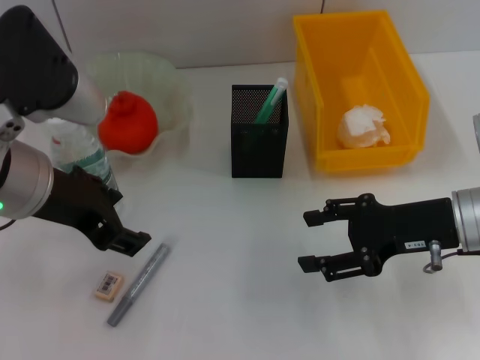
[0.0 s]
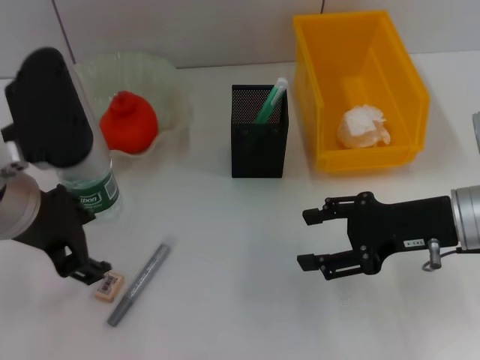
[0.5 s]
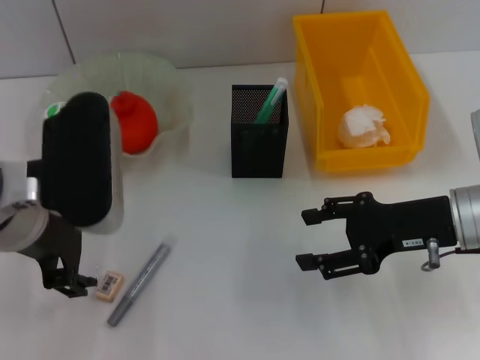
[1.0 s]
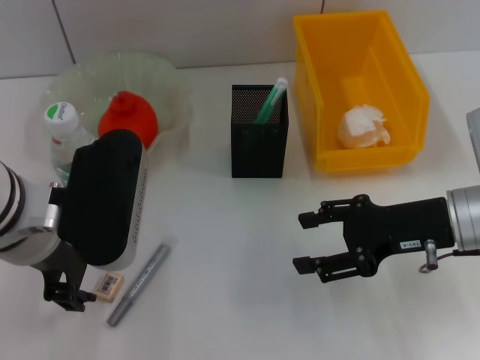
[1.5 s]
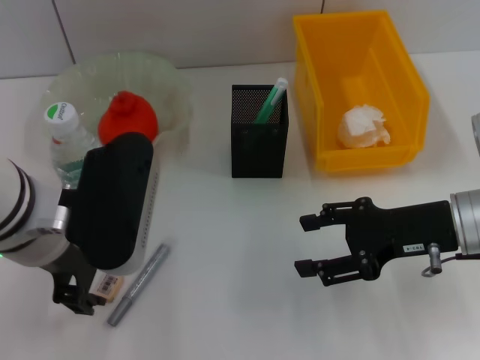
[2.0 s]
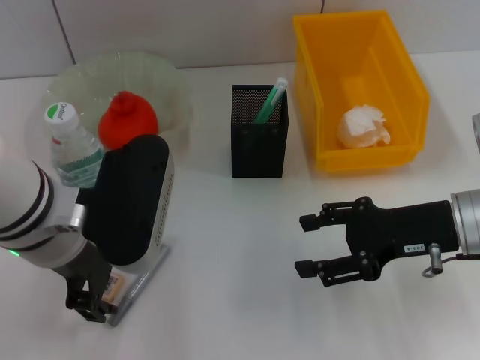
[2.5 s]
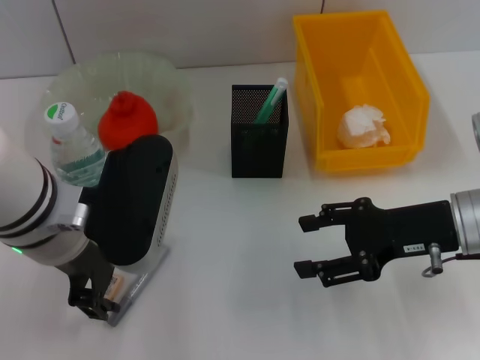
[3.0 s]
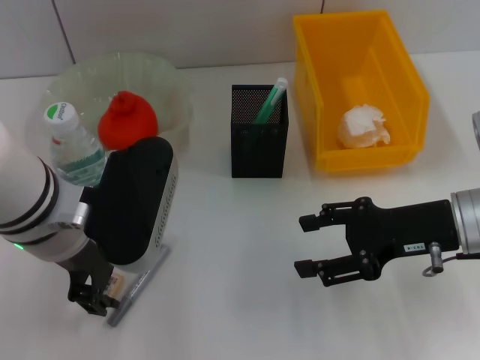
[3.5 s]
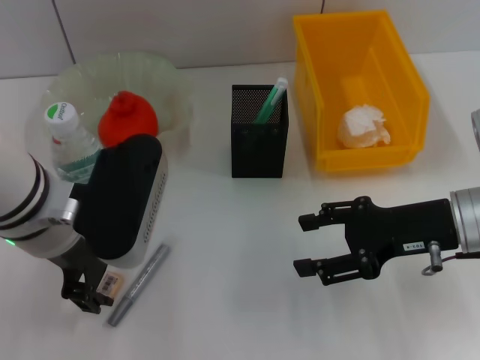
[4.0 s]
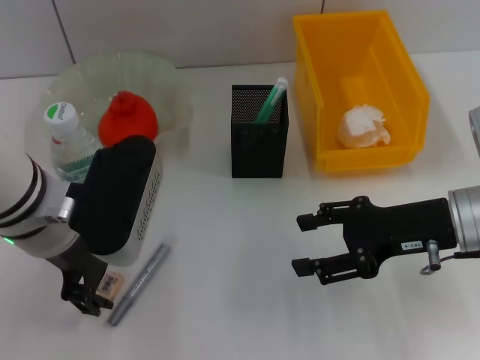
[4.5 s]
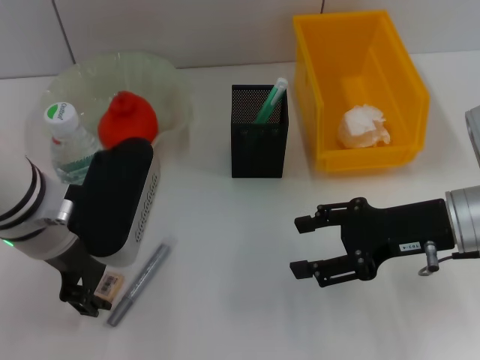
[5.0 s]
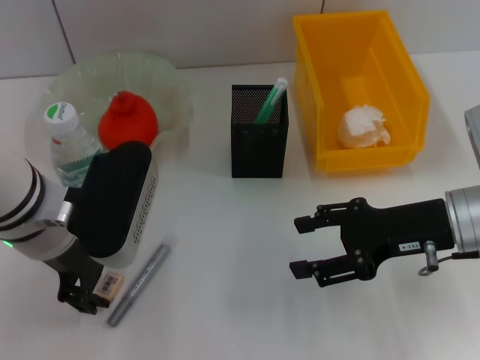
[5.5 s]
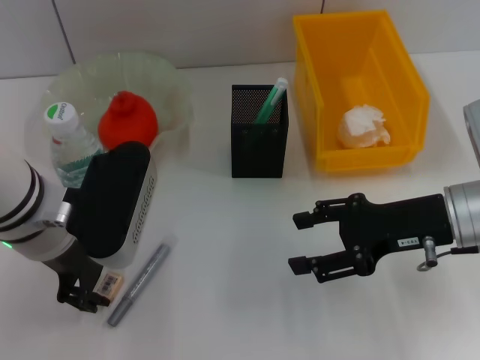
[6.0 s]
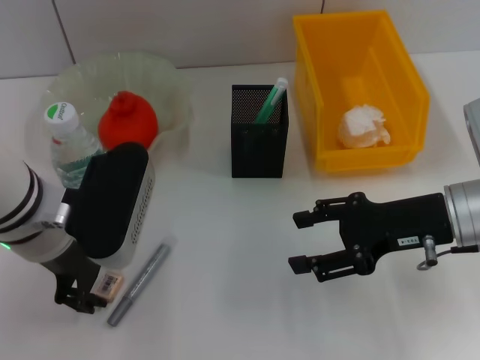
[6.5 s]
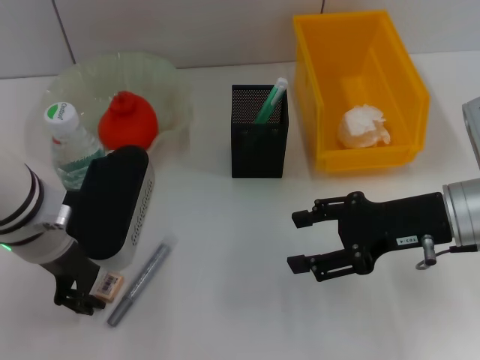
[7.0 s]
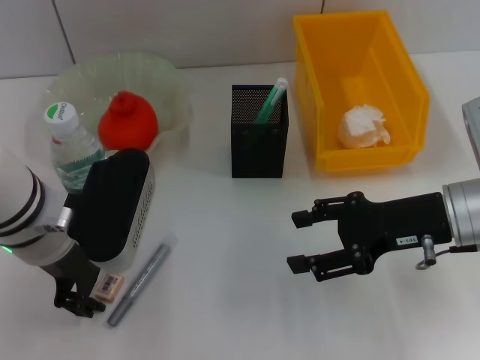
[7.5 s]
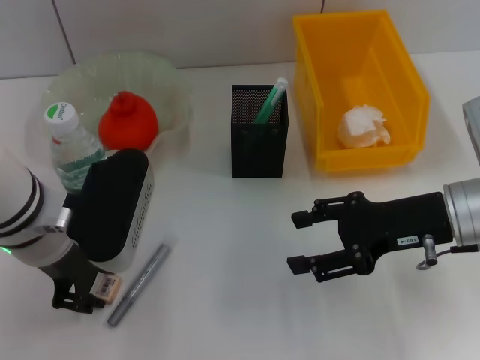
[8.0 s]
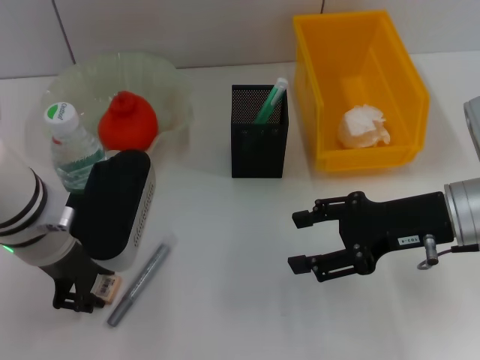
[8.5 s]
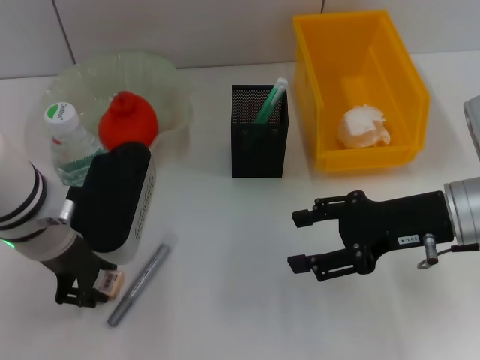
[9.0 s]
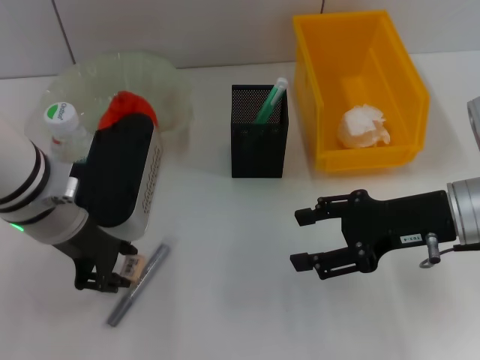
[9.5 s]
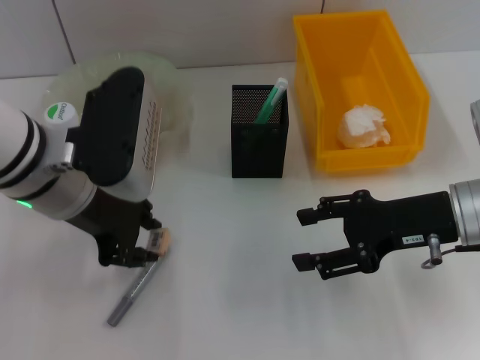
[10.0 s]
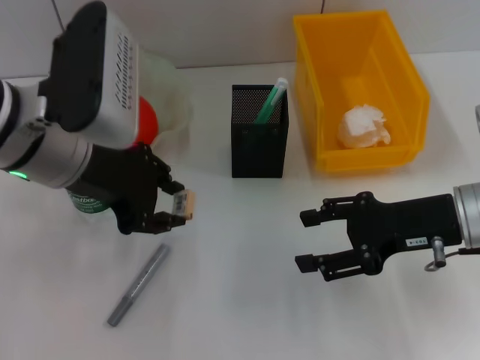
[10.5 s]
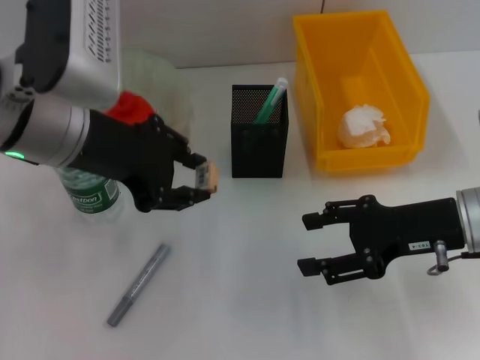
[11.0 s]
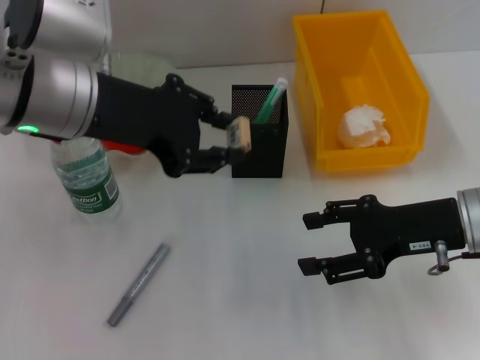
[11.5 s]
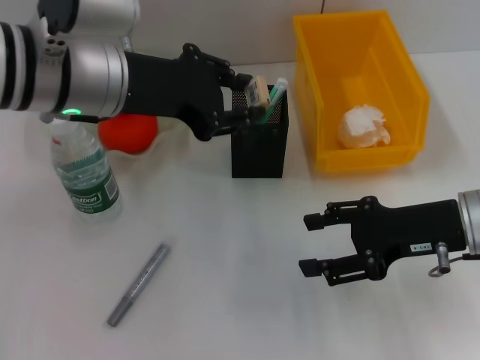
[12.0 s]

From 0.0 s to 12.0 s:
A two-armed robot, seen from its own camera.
Step, from 0.0 s to 8.5 s: Grab the eraser with the left hand.
From 2.0 s to 6.0 s: The grippers stay close to where they were, moving slightly.
From 6.0 s to 8.0 s: Both grippers stay put.
From 8.0 s to 10.0 s: There are only small adjustments of the grippers.
From 10.0 s to 12.0 s: The left gripper moves roughly 5 cm.

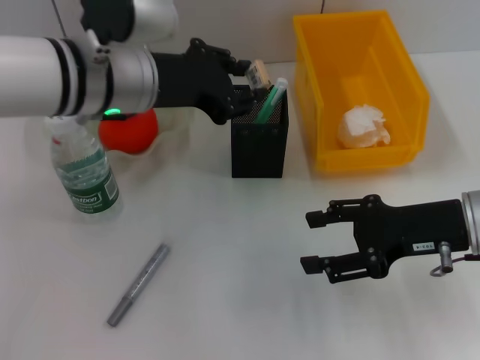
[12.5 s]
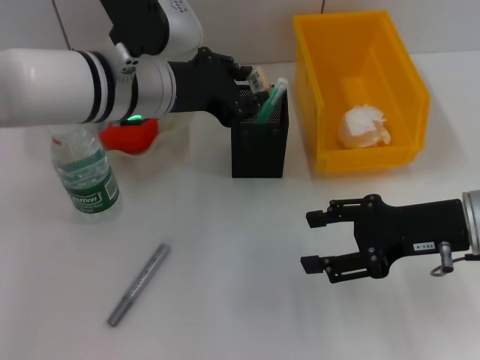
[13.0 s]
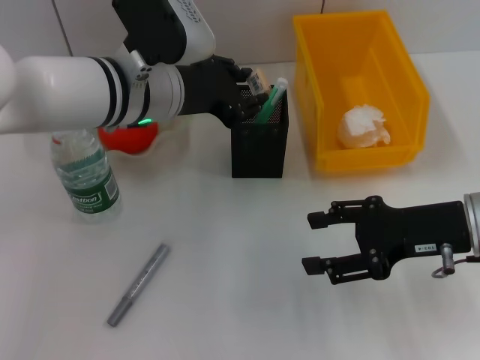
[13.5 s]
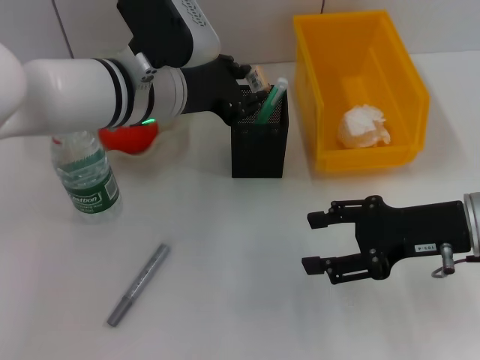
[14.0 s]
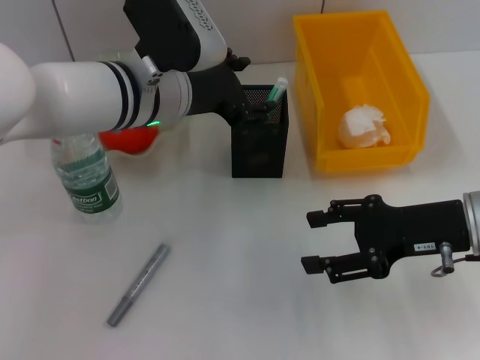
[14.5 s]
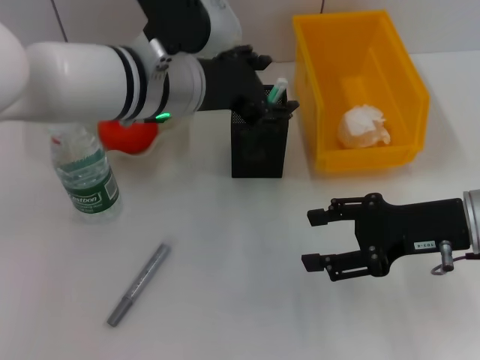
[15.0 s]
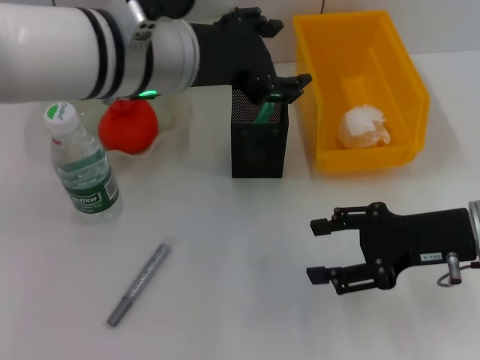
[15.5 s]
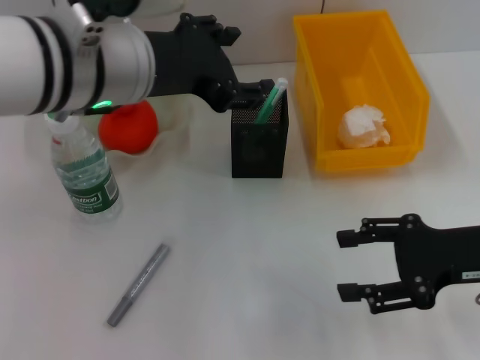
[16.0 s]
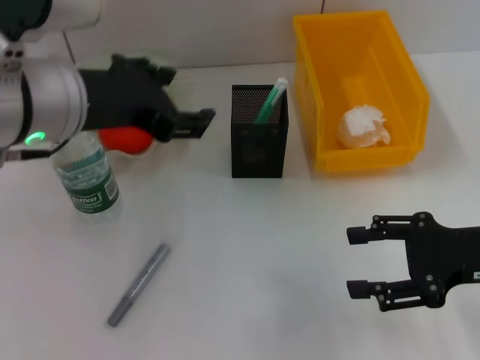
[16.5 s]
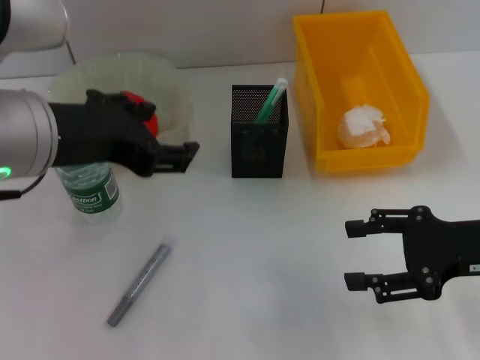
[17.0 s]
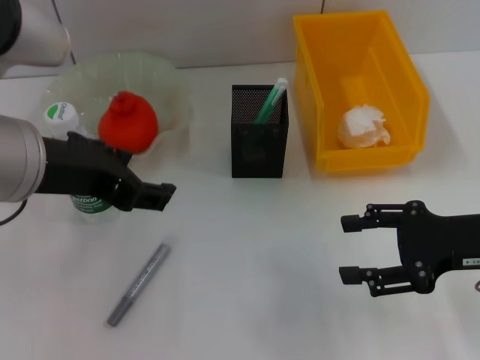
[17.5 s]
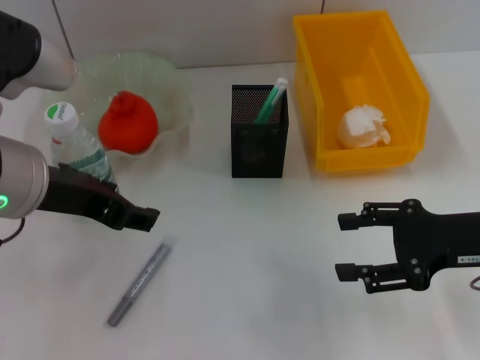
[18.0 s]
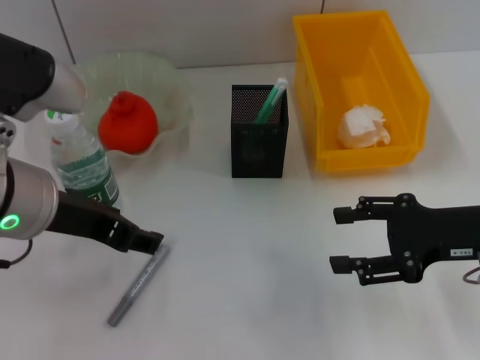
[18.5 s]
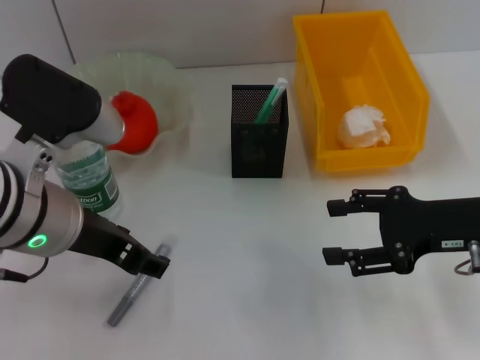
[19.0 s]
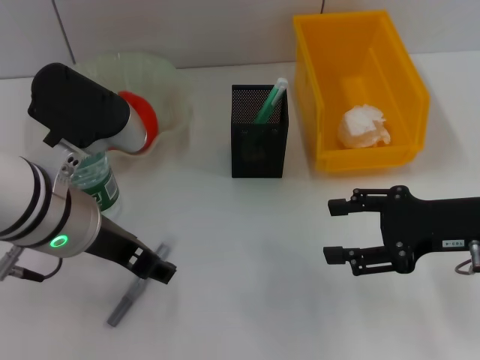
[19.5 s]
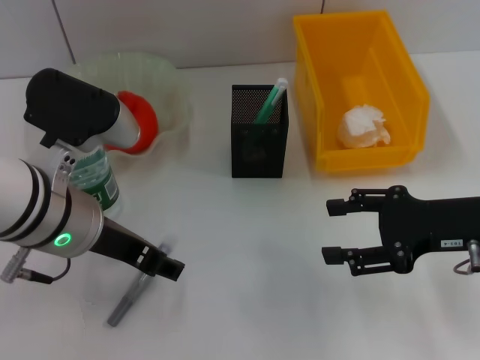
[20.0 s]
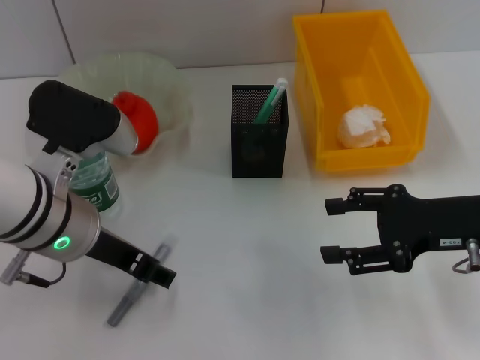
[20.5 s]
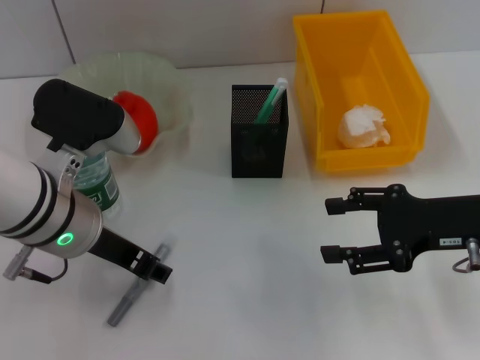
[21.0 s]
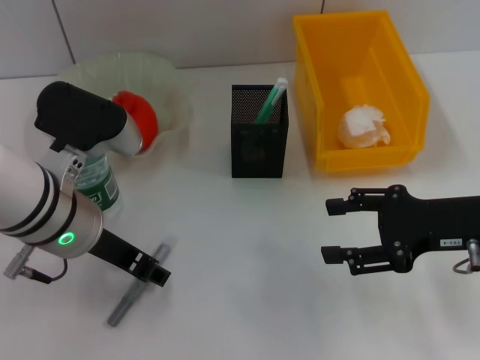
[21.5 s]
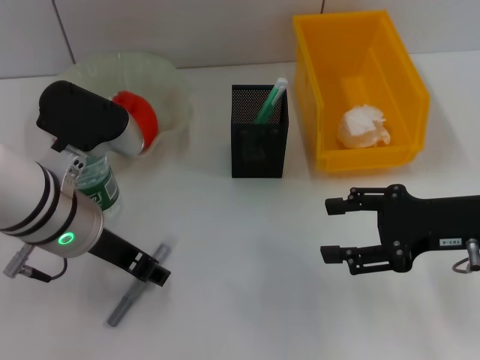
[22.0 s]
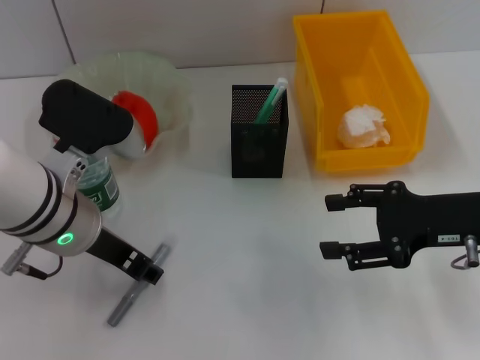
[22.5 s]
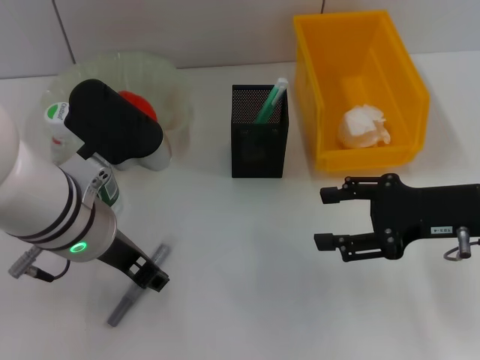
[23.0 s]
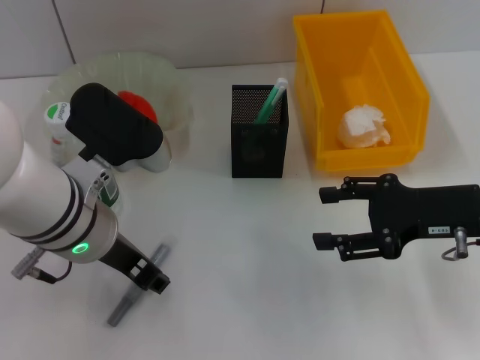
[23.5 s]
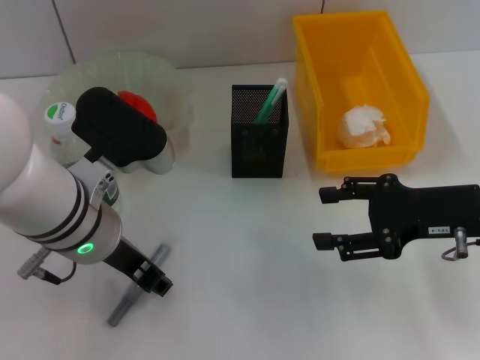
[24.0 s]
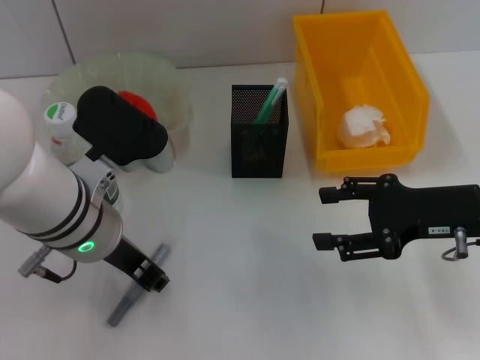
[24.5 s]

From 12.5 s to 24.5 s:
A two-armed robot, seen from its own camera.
Step, from 12.5 s to 14.5 s: Place the eraser into the pen holder with the left hand.
From 12.5 s to 14.5 s: The left gripper moves some 5 cm.
From 14.5 s to 16.5 s: The right gripper ends up approximately 5 cm from where it was. The left gripper shifts approximately 15 cm backward, upward and to the left.
From 18.5 s to 20.5 s: The left gripper travels downward by some 5 cm.
From 20.5 s to 24.5 s: The grippers move only a little.

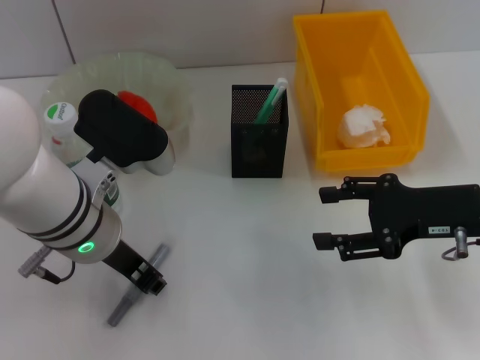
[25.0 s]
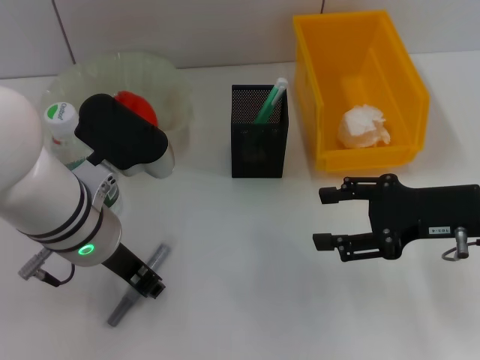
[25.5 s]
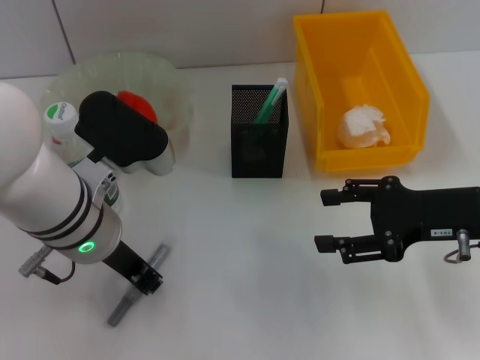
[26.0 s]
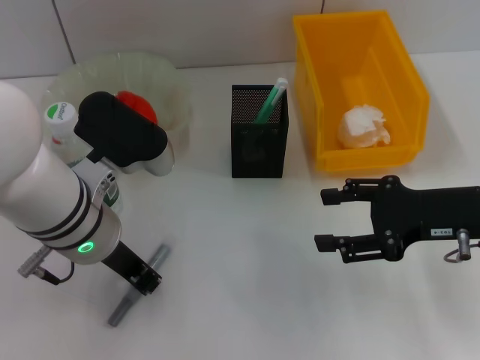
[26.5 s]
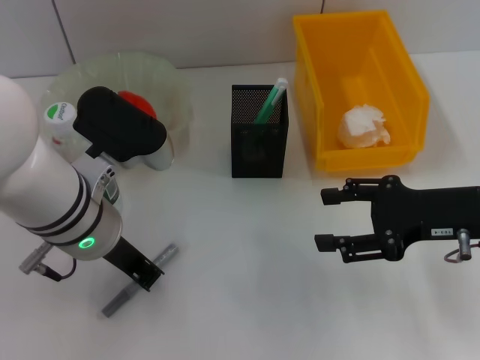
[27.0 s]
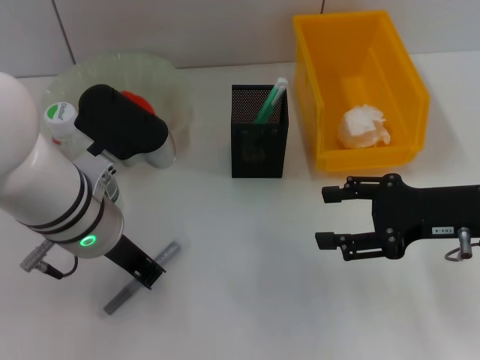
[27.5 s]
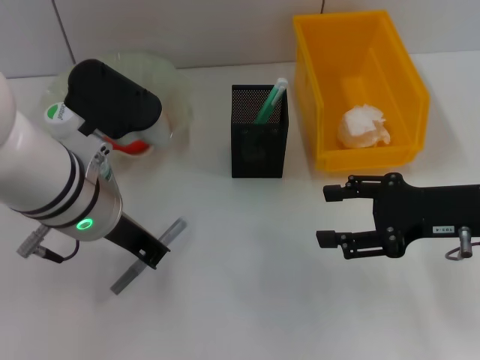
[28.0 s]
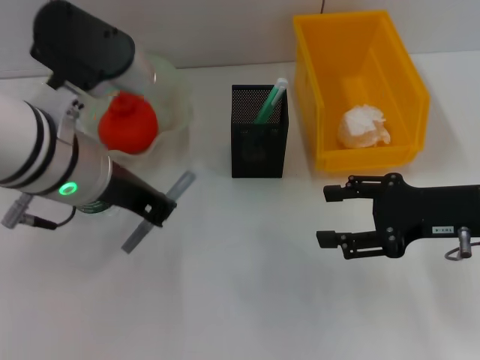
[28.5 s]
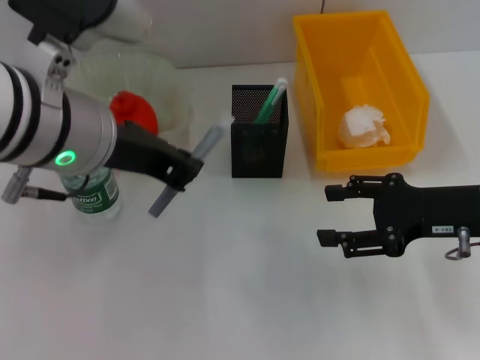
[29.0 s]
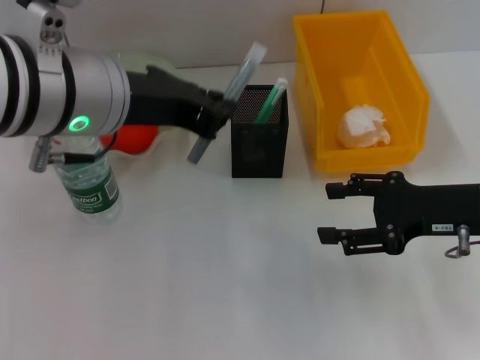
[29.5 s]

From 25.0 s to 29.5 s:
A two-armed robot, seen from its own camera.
Step, from 25.0 s to 27.0 s: Grab the gray glue with the left hand.
From 25.0 s to 27.0 s: Both grippers stay about where they are.
From 27.0 s to 29.5 s: The left gripper heads upward, covering some 10 cm.
